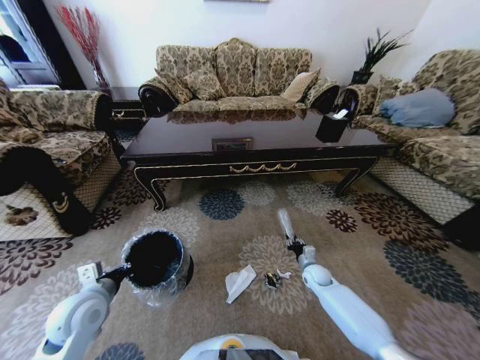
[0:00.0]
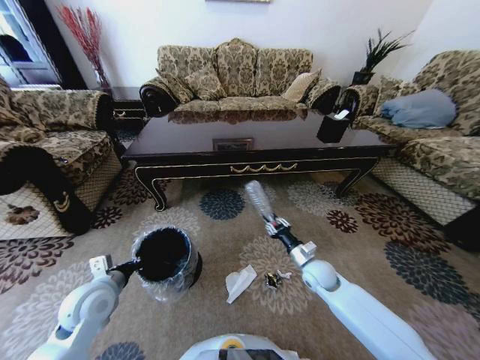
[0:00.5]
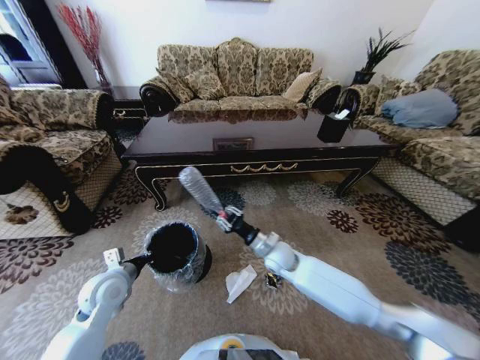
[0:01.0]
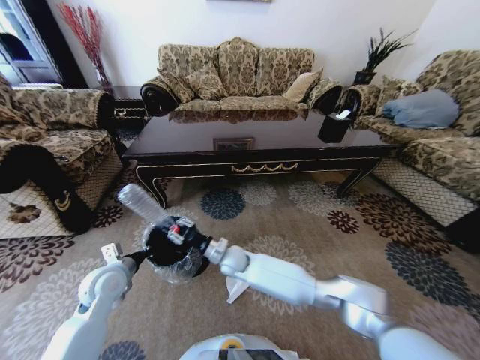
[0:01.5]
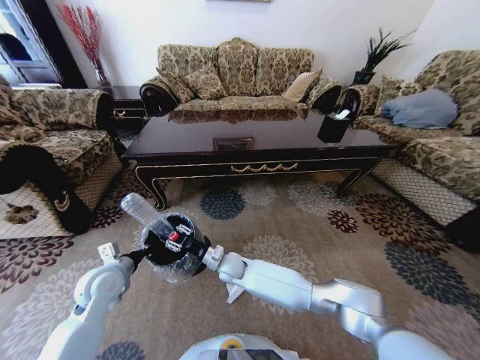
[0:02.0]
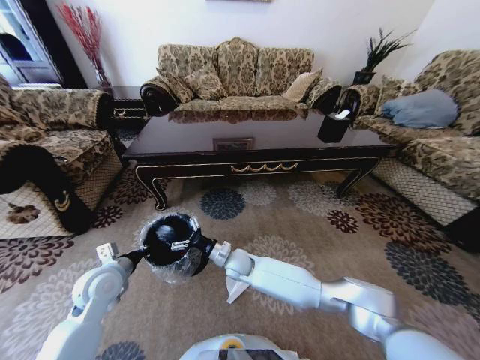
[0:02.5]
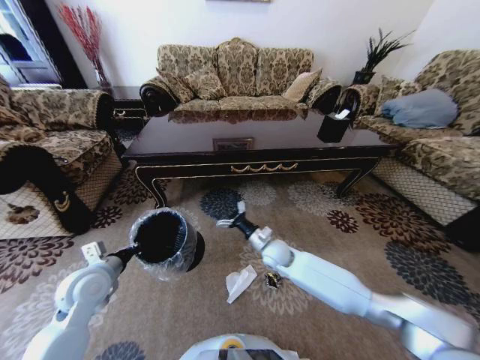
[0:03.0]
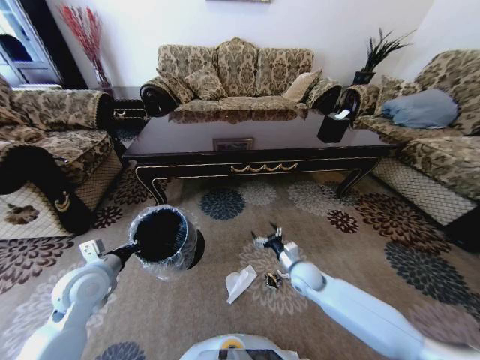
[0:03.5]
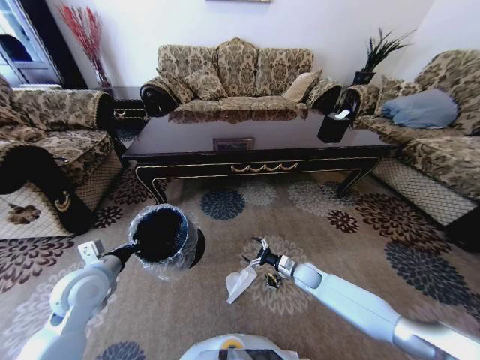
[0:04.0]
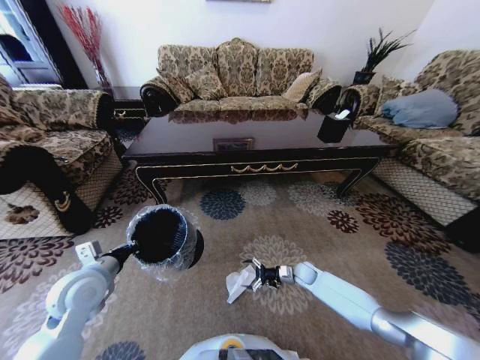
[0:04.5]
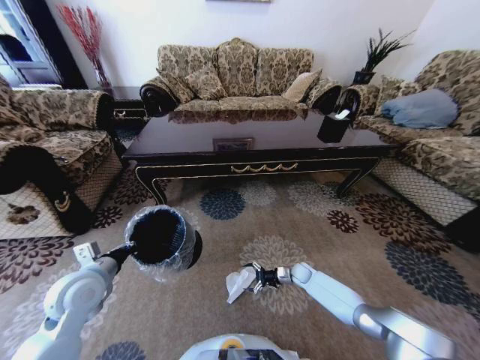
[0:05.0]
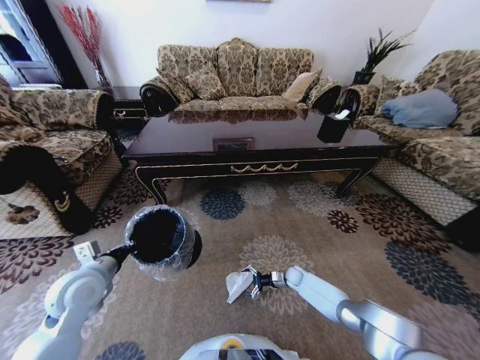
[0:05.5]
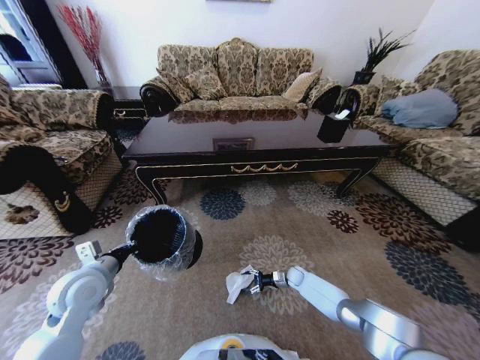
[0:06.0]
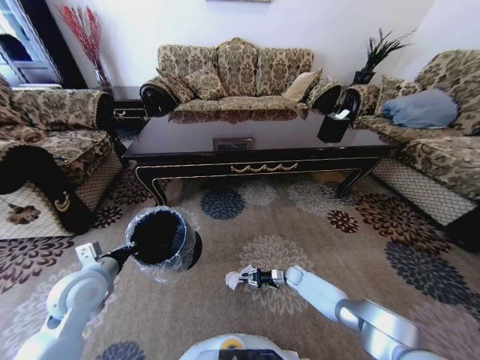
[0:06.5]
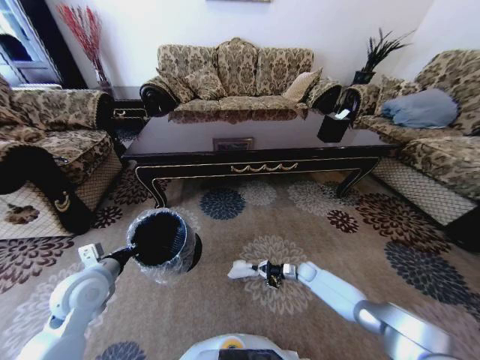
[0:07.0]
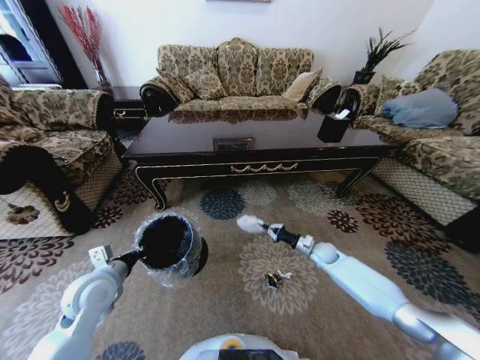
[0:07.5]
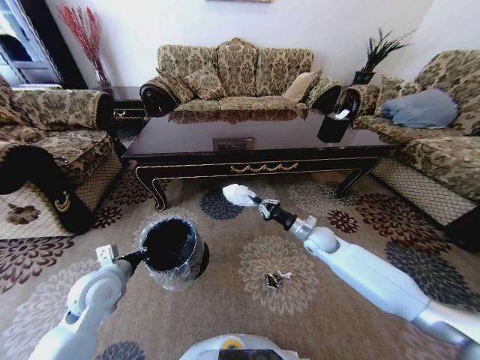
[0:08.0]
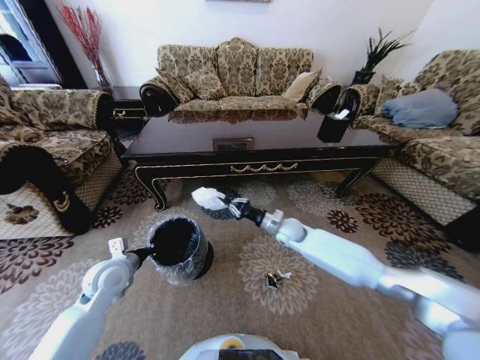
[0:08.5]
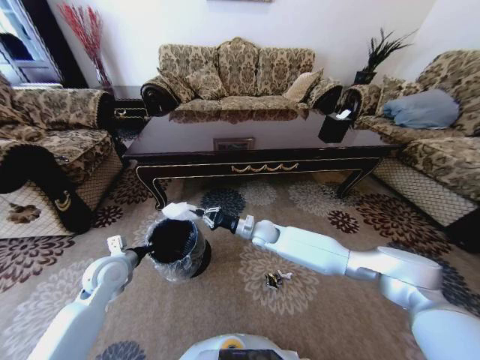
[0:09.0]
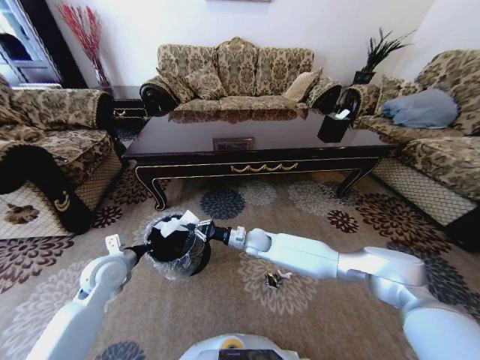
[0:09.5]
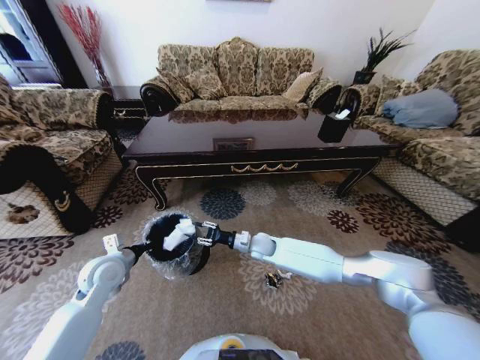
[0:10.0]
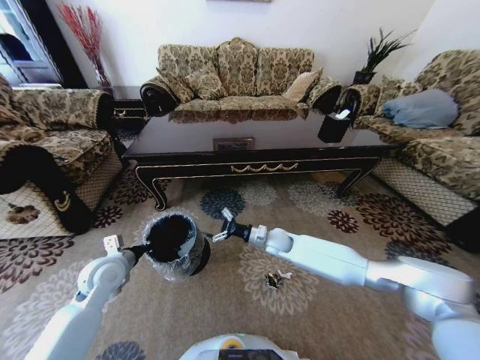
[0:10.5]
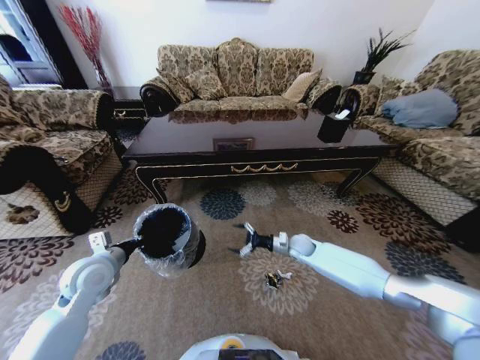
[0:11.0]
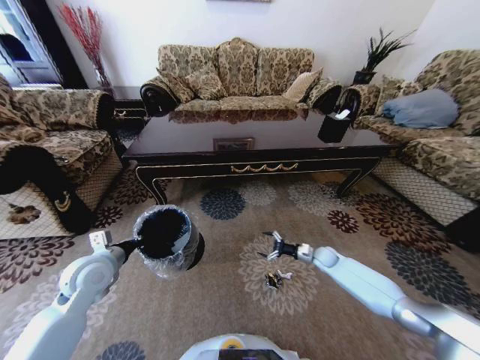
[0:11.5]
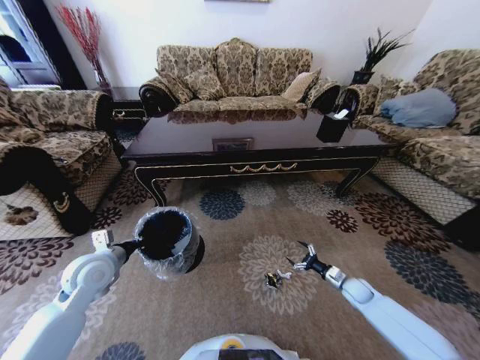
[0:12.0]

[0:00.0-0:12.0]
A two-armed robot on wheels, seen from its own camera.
Task of the whole recording: Move to the front of the table and pick up the trash from the floor, then place it into the trash bin.
0:00.0 to 0:02.0: The right gripper travels to the left by roughly 35 cm, while the left gripper heads forward, covering approximately 5 cm.
0:02.0 to 0:04.0: The right gripper heads to the right, covering roughly 30 cm, and opens.
0:04.0 to 0:06.0: The right gripper heads downward, covering some 10 cm.
0:06.0 to 0:08.0: The right gripper is displaced upward by about 30 cm, and closes.
0:08.0 to 0:10.0: The right gripper heads to the left, covering some 20 cm, and opens up.
0:10.0 to 0:12.0: The right gripper heads to the right, covering some 35 cm, and opens.

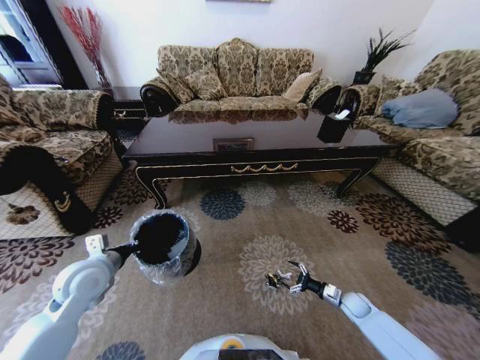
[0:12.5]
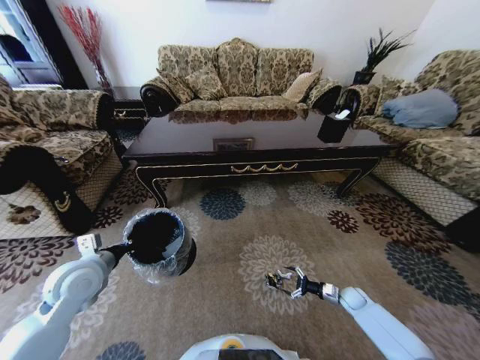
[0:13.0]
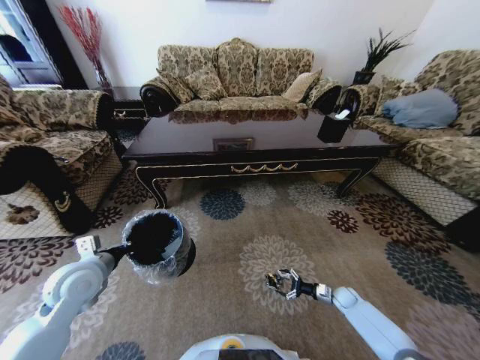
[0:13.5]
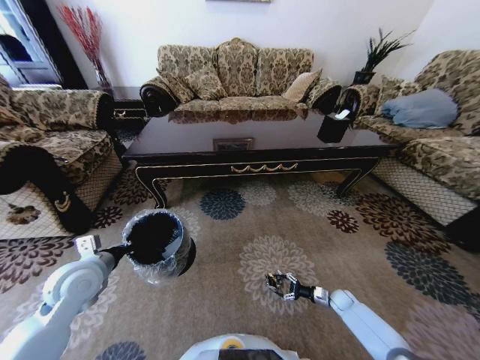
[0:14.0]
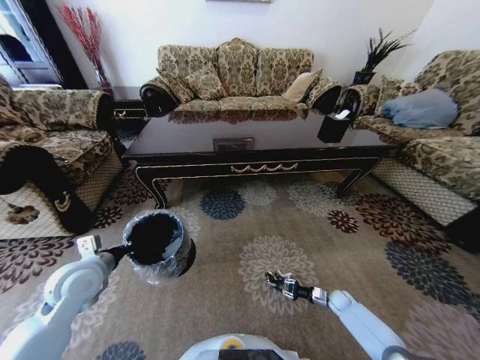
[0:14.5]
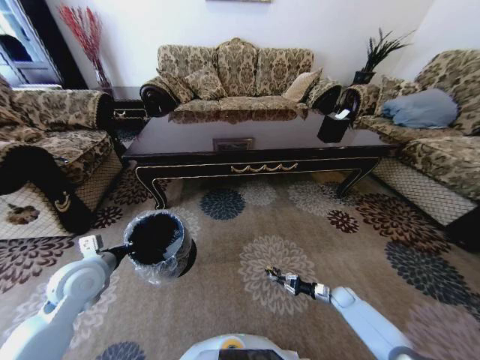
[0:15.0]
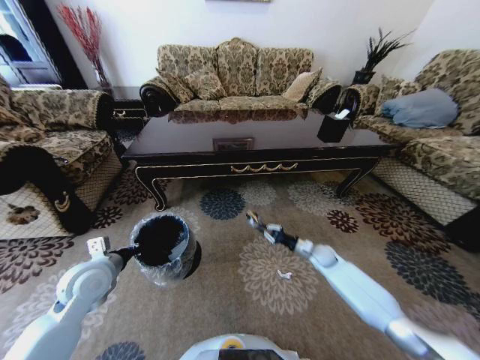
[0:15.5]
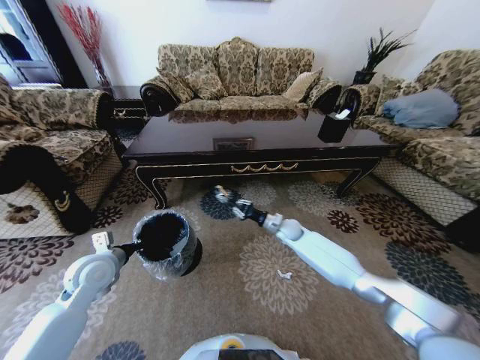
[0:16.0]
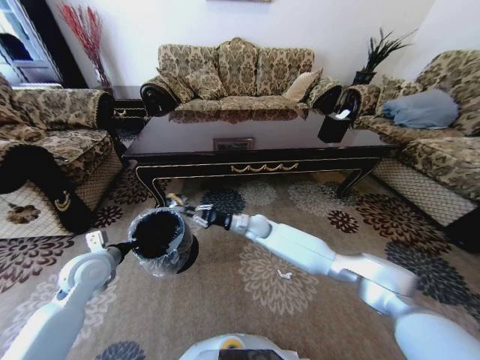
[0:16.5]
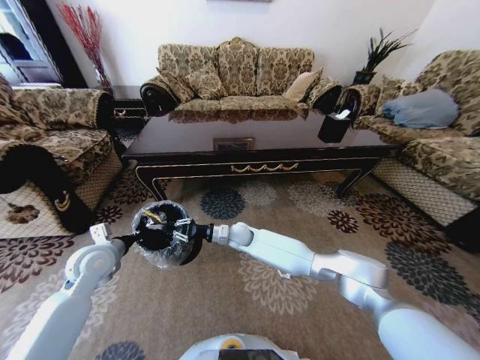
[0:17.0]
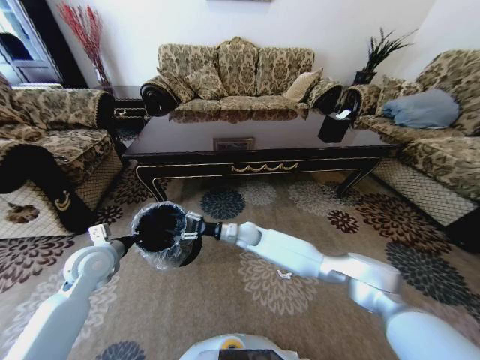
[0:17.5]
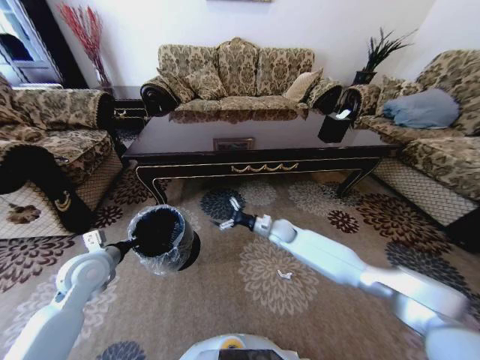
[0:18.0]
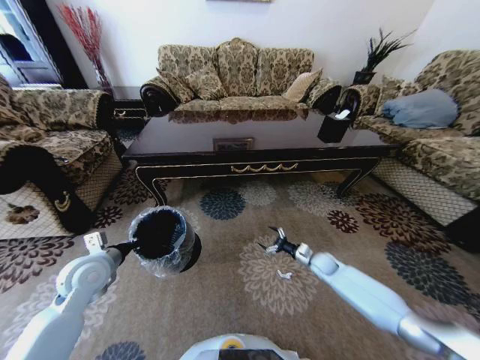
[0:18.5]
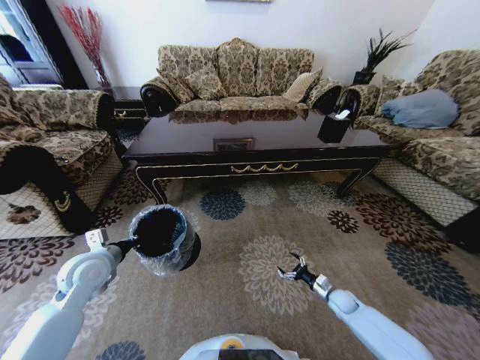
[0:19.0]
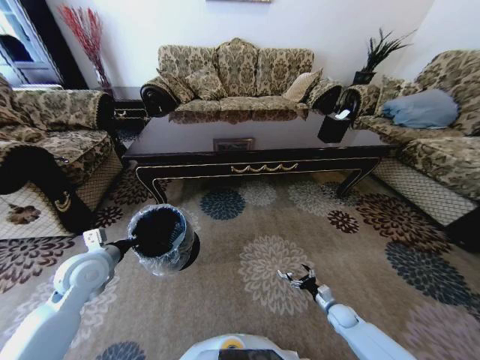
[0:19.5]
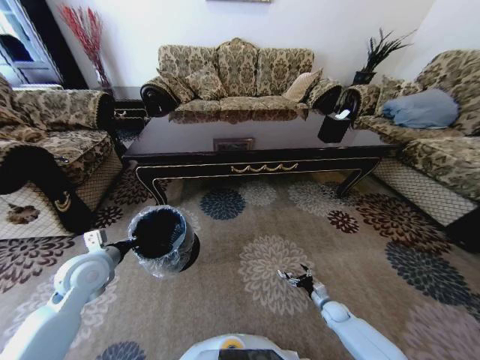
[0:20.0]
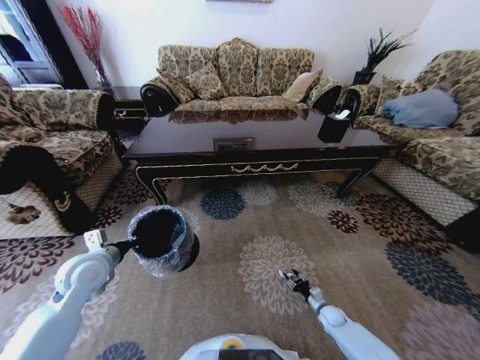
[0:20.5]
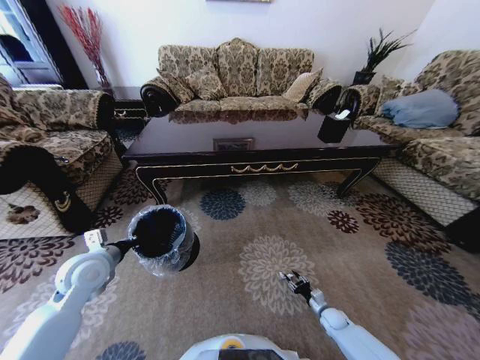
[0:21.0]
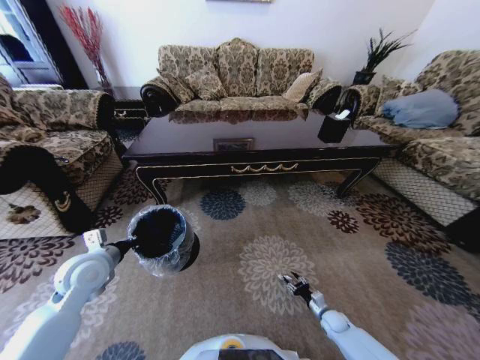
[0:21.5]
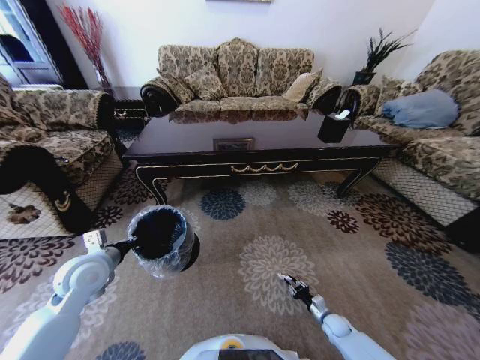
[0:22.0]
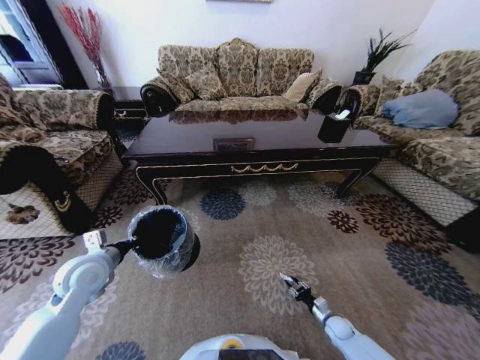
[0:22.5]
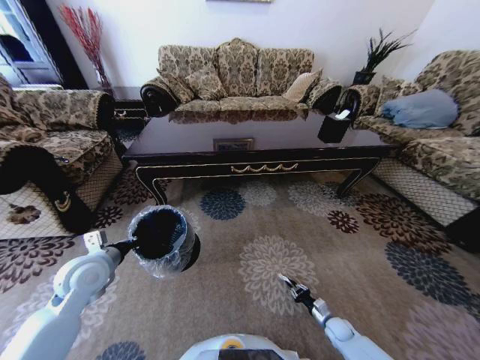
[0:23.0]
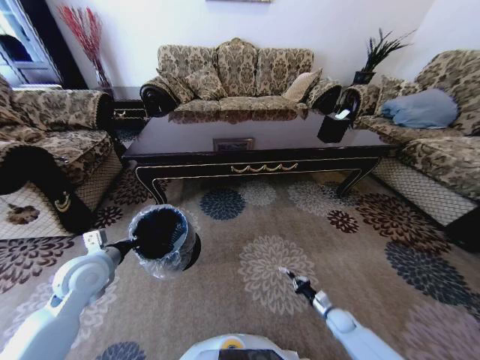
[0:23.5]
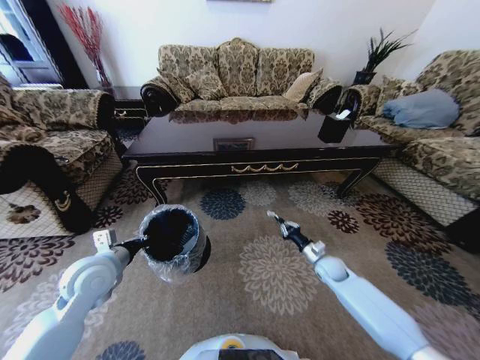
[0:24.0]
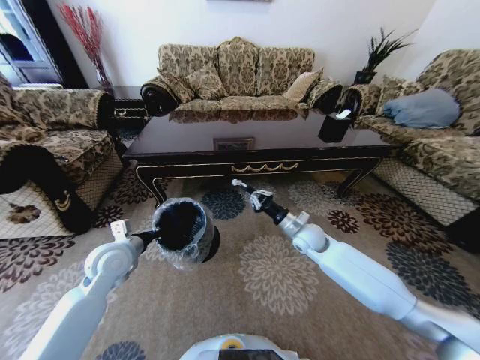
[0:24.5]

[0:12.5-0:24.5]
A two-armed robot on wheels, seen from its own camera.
Task of the whole recording: Move to the front of the table and pick up the trash from the floor, then place it into the trash bin.
0:12.5 to 0:14.5: The right gripper travels downward by about 5 cm, and closes.
0:14.5 to 0:16.5: The right gripper goes approximately 50 cm to the left, upward and forward.
0:16.5 to 0:18.5: The right gripper heads to the right and downward, covering some 30 cm, and opens up.
0:18.5 to 0:20.5: The right gripper travels downward and backward by roughly 20 cm, and closes.
0:20.5 to 0:22.5: There are only small adjustments of the grippers.
0:22.5 to 0:24.5: The left gripper changes place by some 5 cm. The right gripper is displaced upward, forward and to the left by roughly 40 cm.

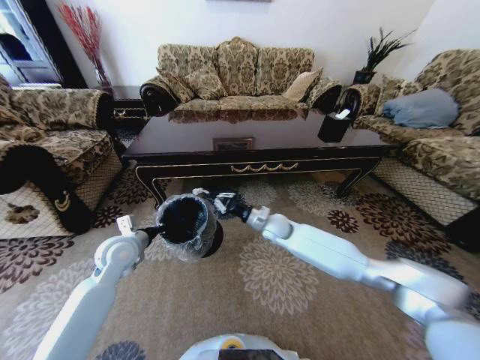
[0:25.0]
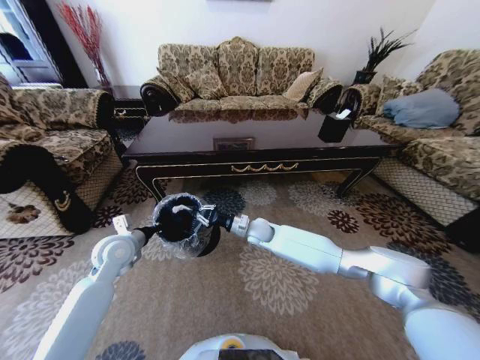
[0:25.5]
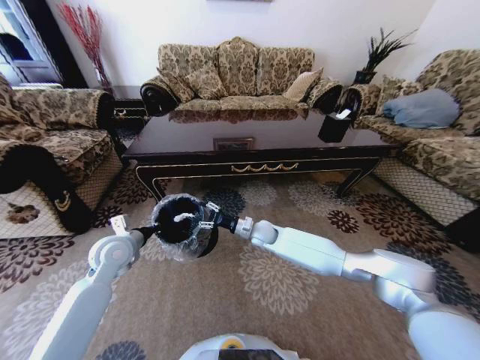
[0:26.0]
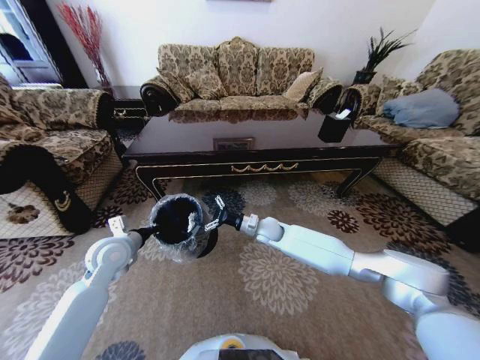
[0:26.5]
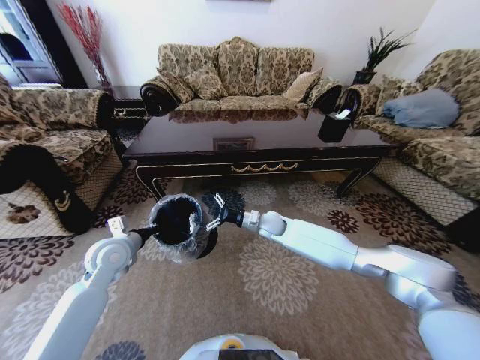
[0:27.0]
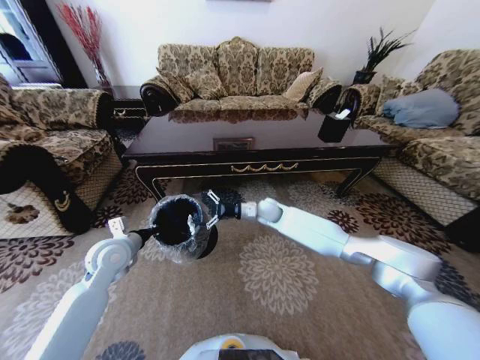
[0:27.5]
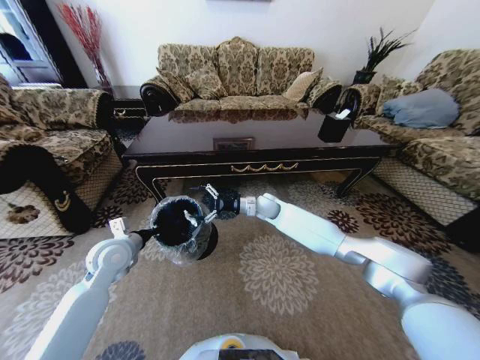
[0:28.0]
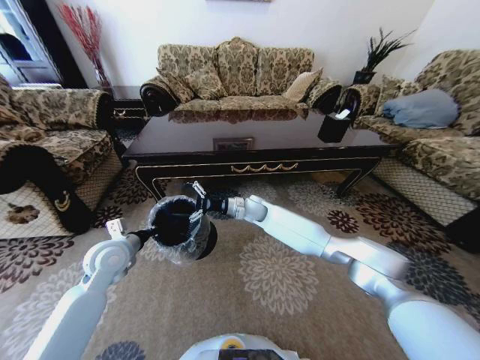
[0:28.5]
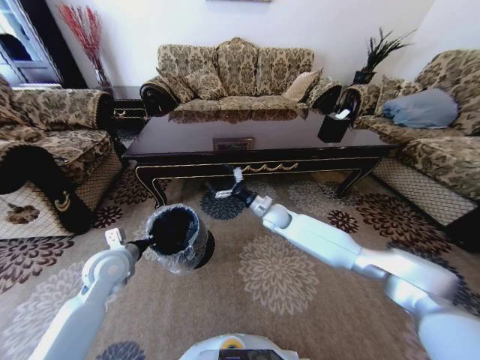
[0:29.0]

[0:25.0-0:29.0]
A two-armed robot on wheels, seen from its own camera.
Task of the whole recording: Move to the front of the table and pick up the trash from the floor, then place it into the trash bin.
0:25.0 to 0:27.0: The right gripper opens its fingers.
0:27.0 to 0:29.0: The right gripper moves approximately 5 cm to the left and comes back.
